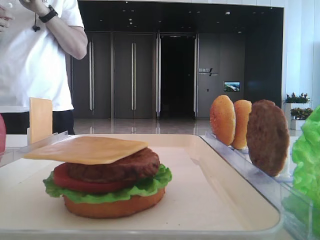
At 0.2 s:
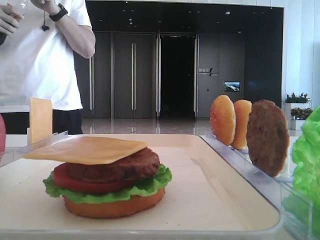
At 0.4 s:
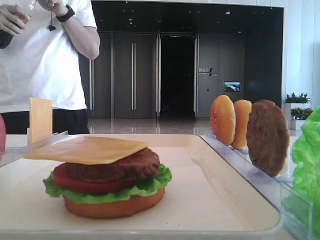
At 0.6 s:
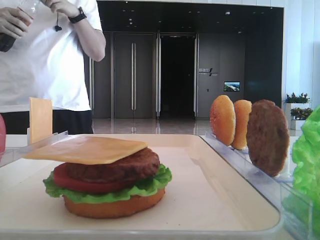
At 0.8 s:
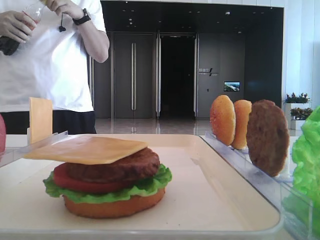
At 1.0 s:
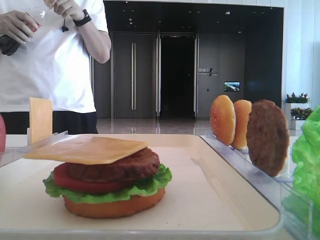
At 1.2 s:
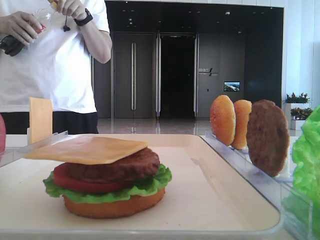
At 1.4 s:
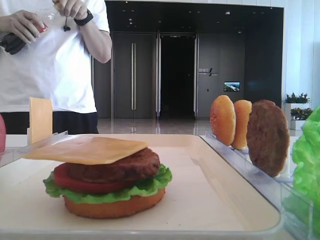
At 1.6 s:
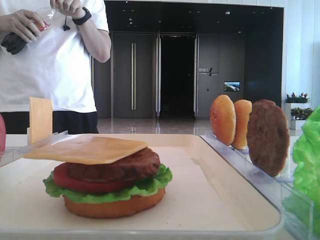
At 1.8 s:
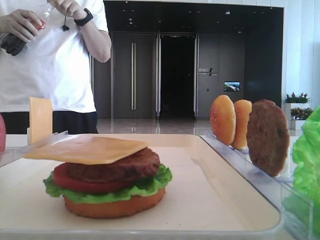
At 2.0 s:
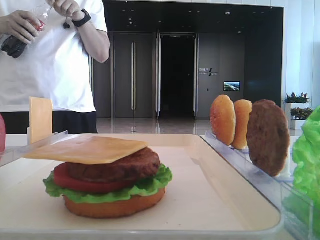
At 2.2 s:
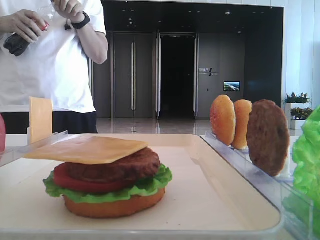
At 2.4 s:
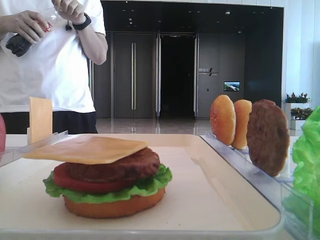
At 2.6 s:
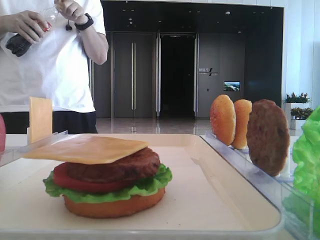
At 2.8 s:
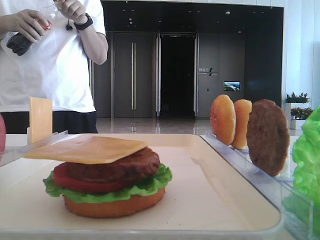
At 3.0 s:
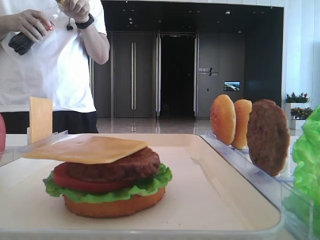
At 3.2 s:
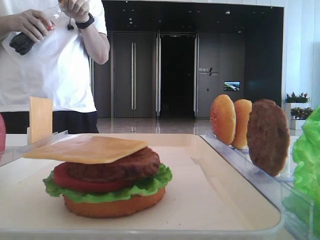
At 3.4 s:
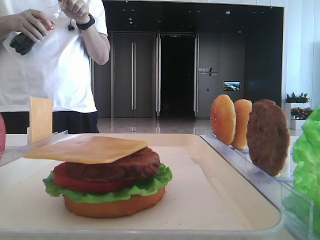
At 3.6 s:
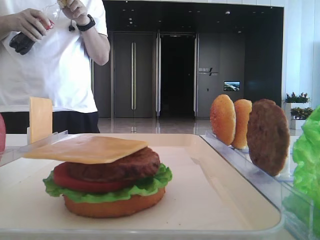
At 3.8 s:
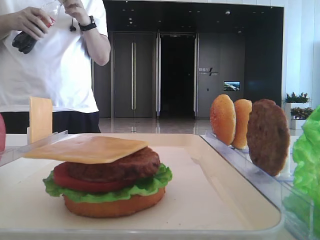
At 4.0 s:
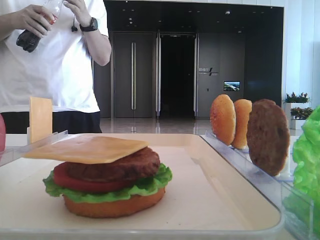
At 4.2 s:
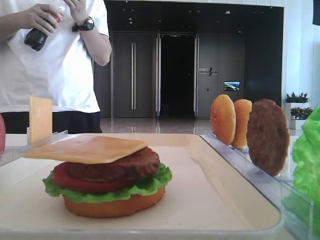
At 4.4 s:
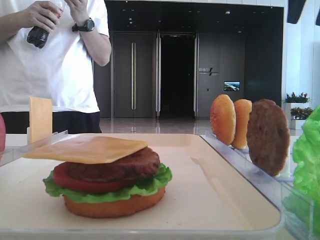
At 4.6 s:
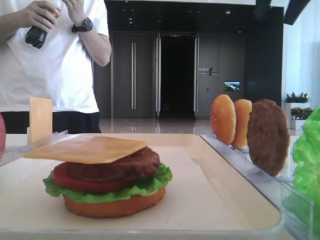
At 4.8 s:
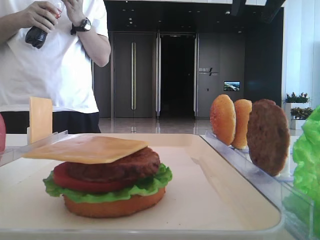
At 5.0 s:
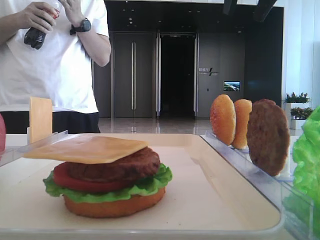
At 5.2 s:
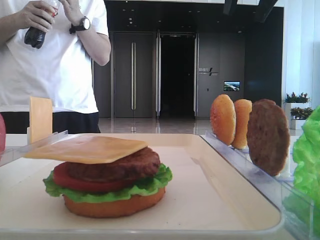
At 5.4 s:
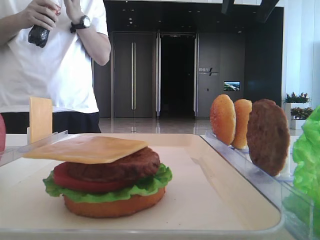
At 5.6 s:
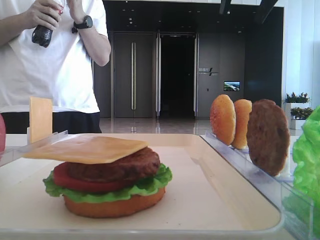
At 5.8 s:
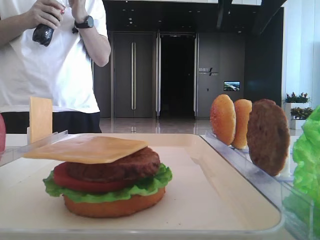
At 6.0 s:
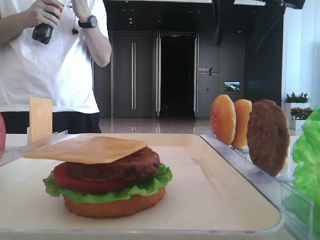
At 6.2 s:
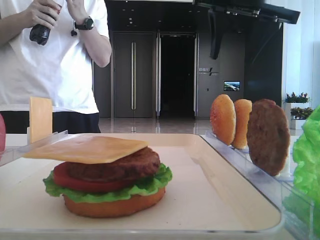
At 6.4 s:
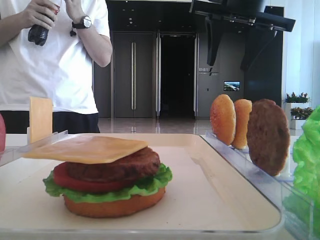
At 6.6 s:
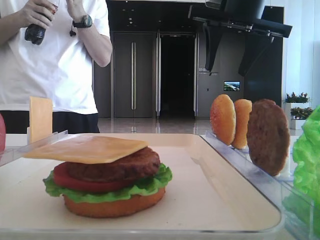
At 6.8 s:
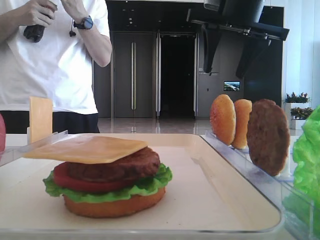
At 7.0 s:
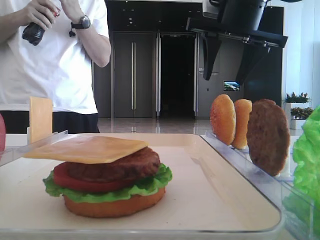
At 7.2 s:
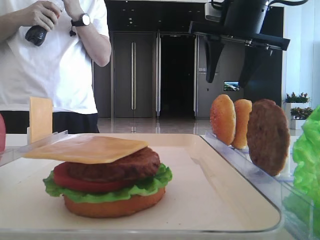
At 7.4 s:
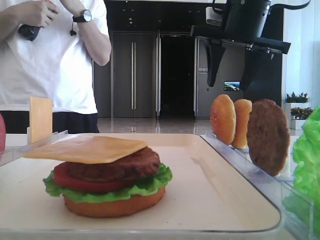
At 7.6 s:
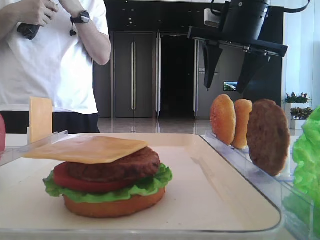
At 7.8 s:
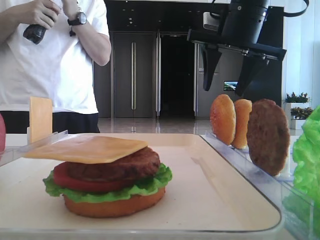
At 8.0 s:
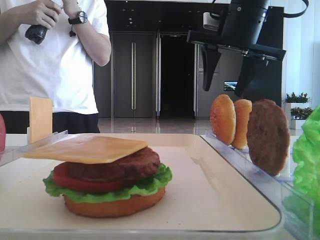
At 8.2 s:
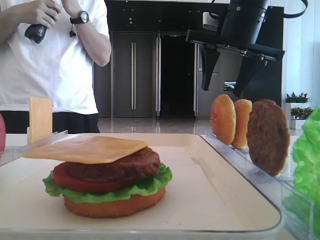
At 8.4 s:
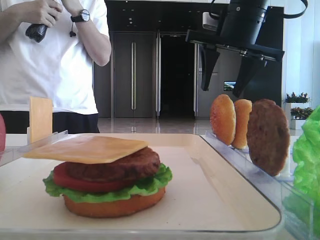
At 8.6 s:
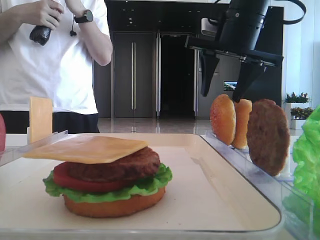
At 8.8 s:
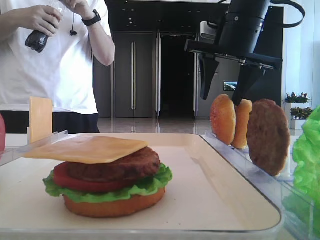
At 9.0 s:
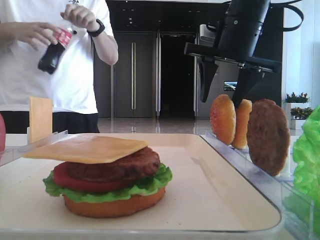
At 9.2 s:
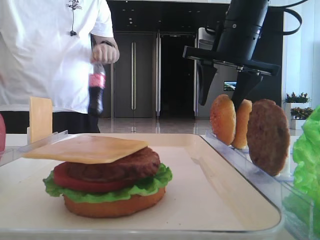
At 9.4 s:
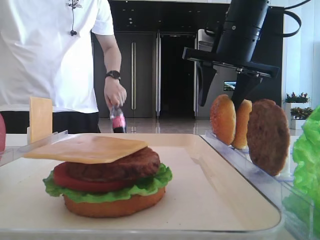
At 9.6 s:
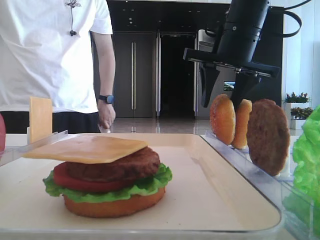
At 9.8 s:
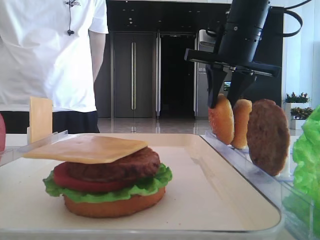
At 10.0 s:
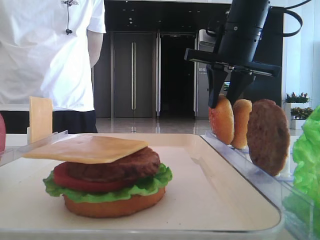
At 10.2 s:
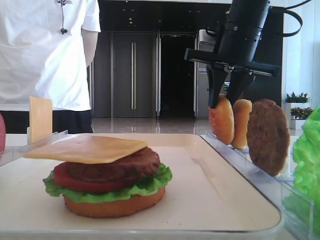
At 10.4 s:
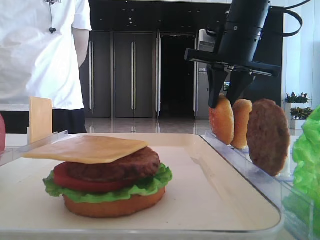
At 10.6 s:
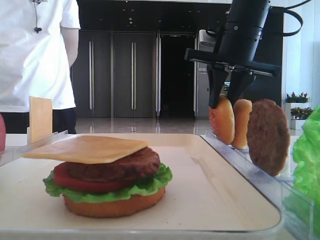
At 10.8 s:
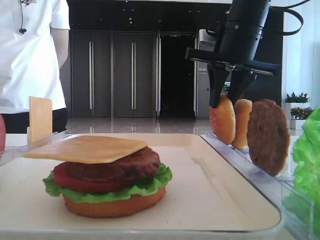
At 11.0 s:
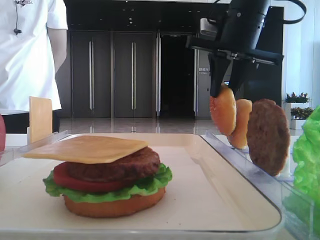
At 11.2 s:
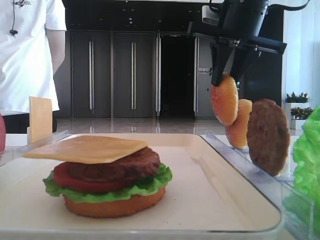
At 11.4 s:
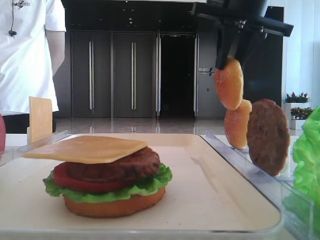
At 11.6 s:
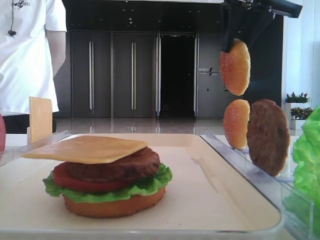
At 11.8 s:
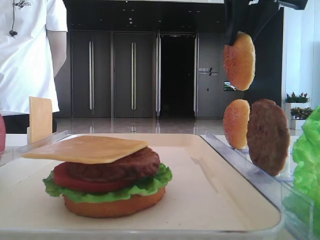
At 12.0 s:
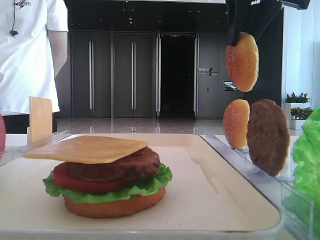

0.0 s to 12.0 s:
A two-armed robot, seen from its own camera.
Step, 0.0 to 10.6 s: Pick up the top bread slice with the right hand.
1.6 to 3.0 s: The left gripper closes its fingers.
3.0 to 4.4 s: The right gripper goes approximately 10 cm forward.
4.4 to 6.0 s: The right gripper goes approximately 10 cm to the left.
6.0 to 7.6 s: The right gripper goes about 5 cm downward.
7.6 to 9.0 s: The grippers make only small movements.
9.0 to 10.4 s: The right gripper closes.
10.4 to 12.0 s: The right gripper travels upward and backward by roughly 10 cm.

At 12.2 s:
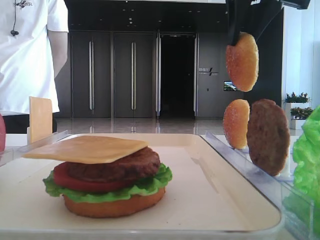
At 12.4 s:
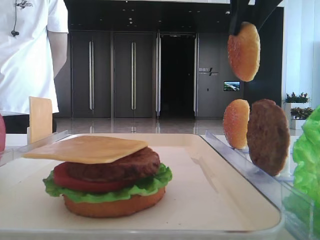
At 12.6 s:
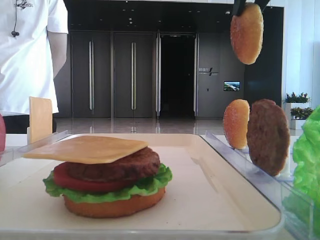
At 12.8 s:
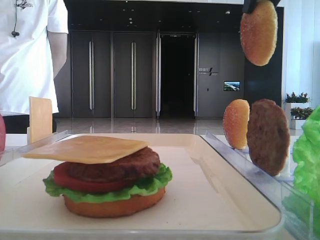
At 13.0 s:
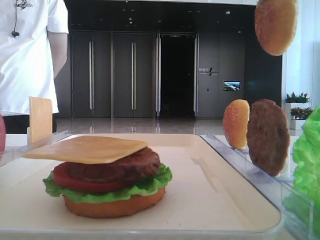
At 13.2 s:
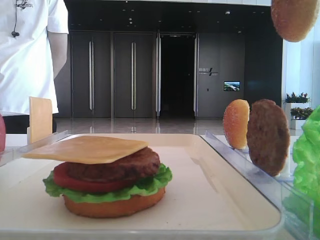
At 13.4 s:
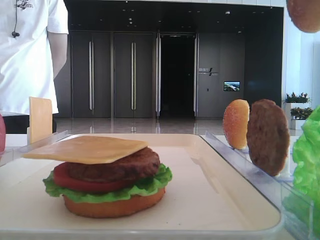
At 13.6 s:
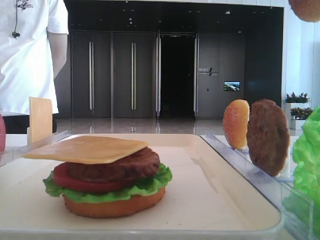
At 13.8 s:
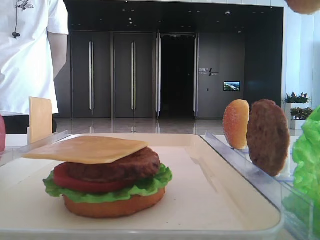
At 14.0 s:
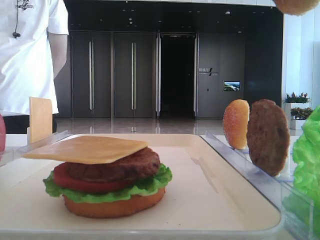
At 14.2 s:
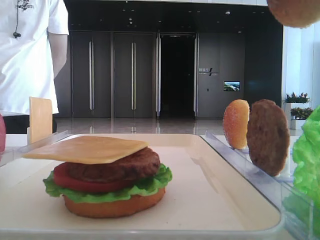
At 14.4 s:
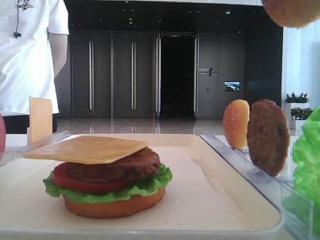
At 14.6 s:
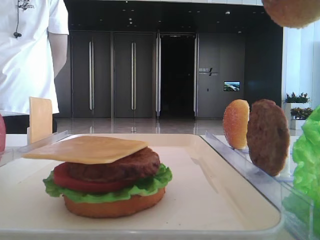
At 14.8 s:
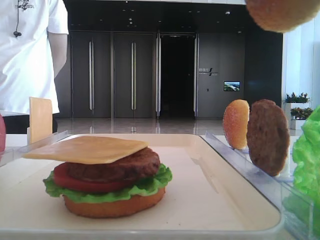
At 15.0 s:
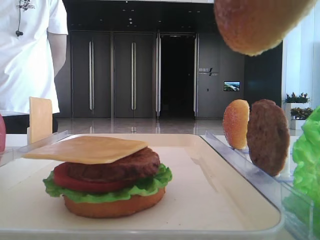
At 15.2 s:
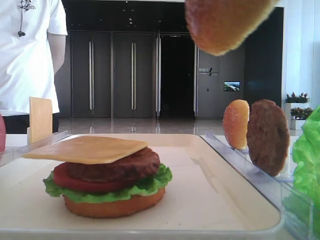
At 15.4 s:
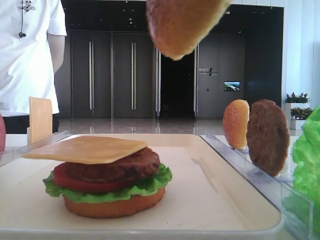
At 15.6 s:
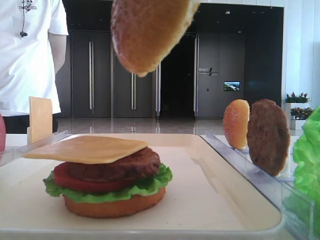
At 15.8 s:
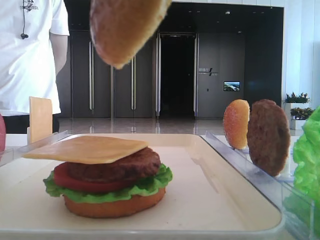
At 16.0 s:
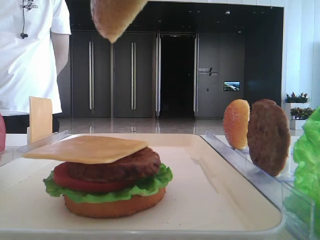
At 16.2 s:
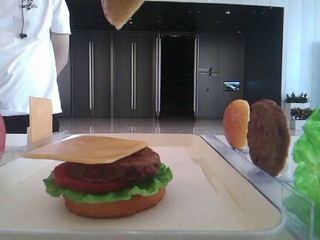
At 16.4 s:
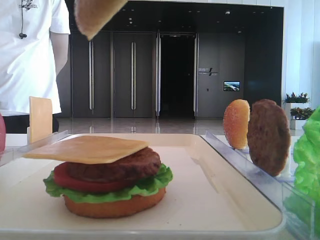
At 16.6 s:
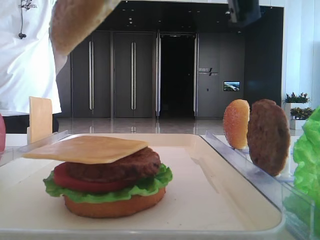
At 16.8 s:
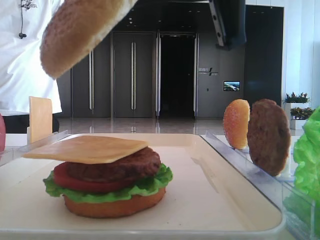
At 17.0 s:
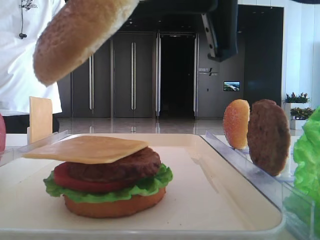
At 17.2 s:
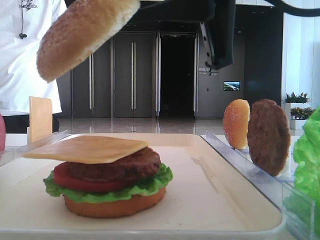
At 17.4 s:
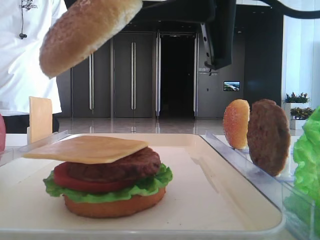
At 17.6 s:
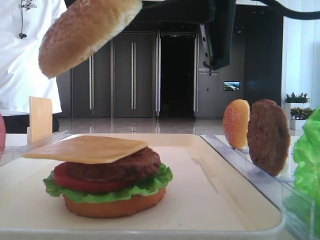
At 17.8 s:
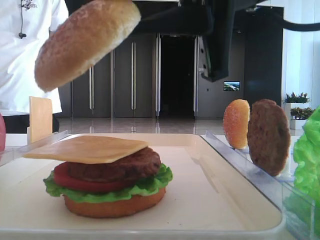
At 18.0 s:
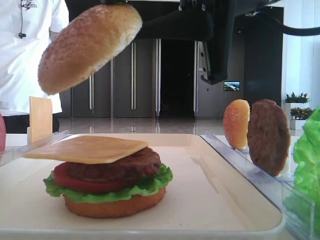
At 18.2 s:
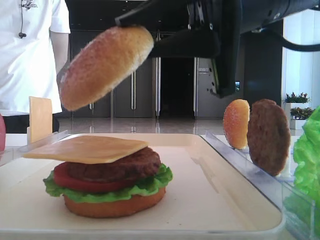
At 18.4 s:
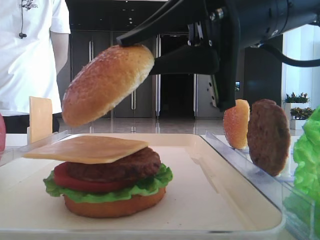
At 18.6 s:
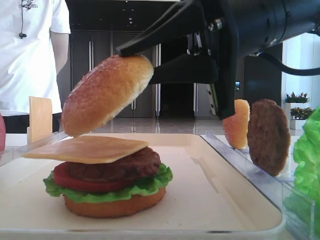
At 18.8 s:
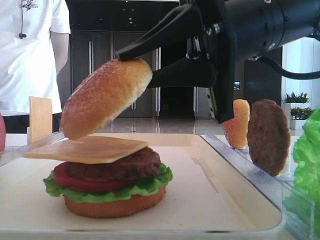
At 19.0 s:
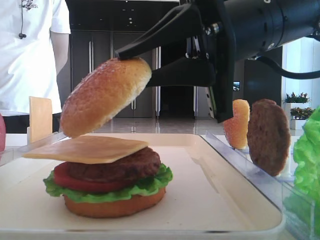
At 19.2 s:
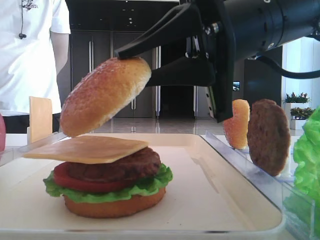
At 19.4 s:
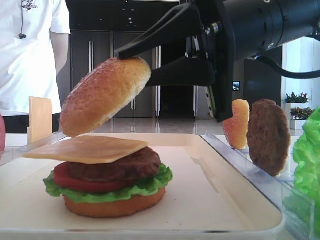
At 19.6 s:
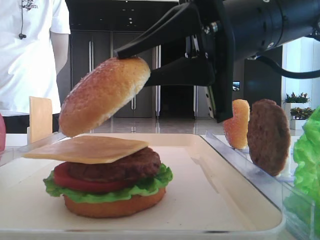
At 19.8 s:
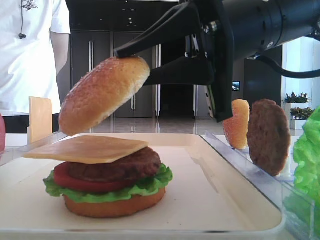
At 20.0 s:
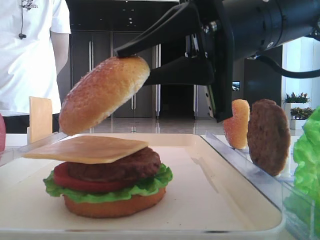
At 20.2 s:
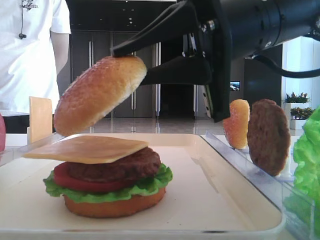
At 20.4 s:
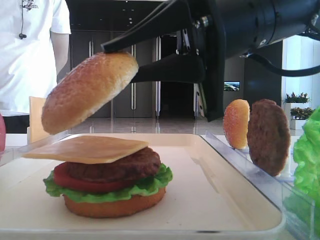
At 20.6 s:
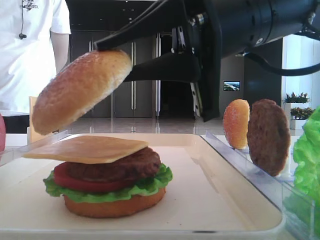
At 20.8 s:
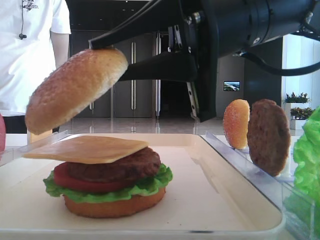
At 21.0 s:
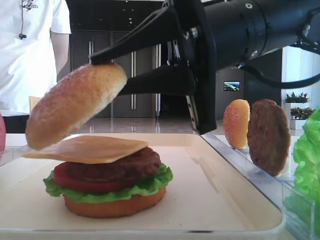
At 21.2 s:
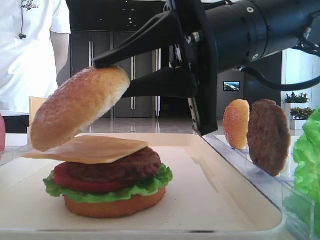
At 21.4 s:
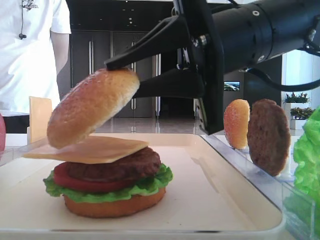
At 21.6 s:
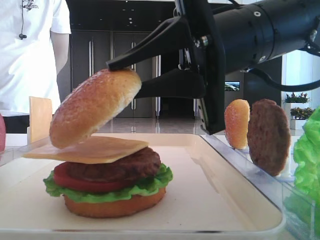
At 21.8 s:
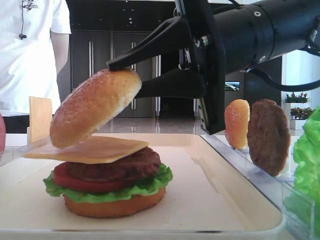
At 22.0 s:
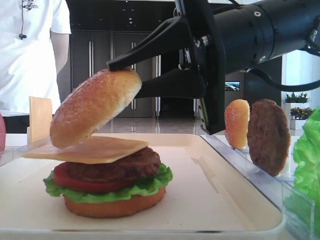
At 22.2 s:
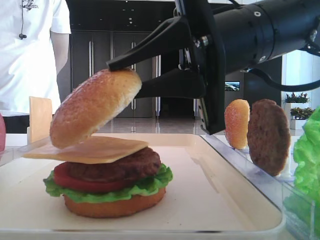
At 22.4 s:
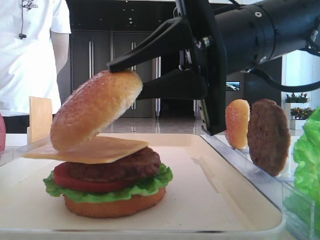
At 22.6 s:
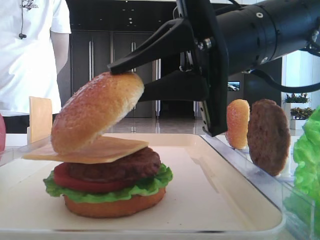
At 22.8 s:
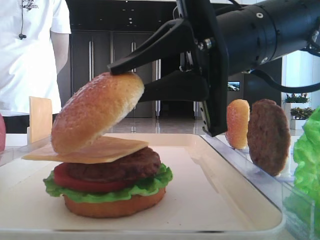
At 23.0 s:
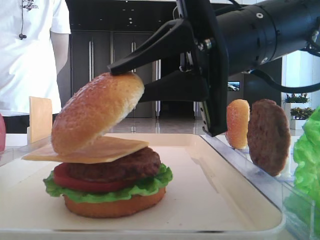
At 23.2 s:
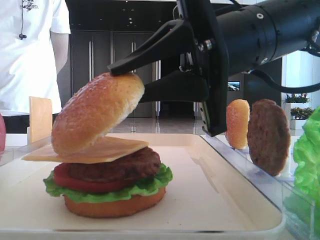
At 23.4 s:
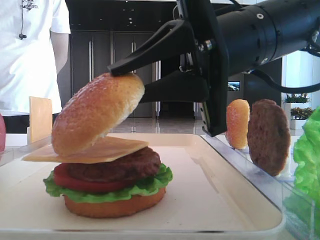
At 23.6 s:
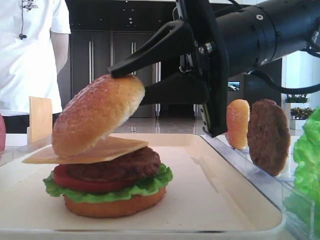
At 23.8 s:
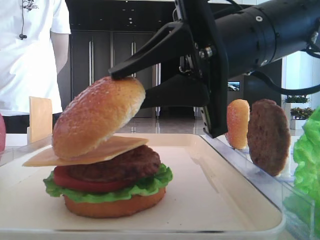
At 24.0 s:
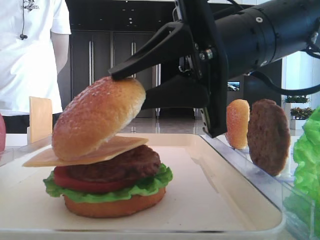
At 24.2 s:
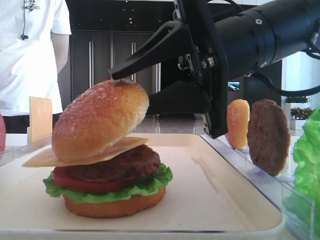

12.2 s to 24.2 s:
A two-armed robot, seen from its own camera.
12.2 to 13.8 s: The right gripper shifts roughly 20 cm backward.
13.8 to 15.2 s: The right gripper heads downward and to the left, covering approximately 10 cm.
15.2 to 16.6 s: The right gripper moves forward, approximately 5 cm.
16.6 to 18.2 s: The right gripper moves downward, about 5 cm.
18.2 to 21.2 s: The grippers stay close to where they were, moving slightly.
21.2 to 22.6 s: The two grippers keep their place.
22.6 to 24.2 s: Neither gripper changes place.
